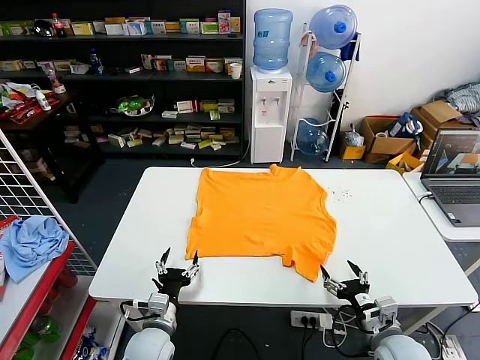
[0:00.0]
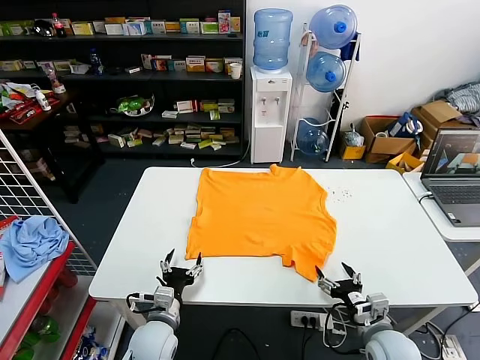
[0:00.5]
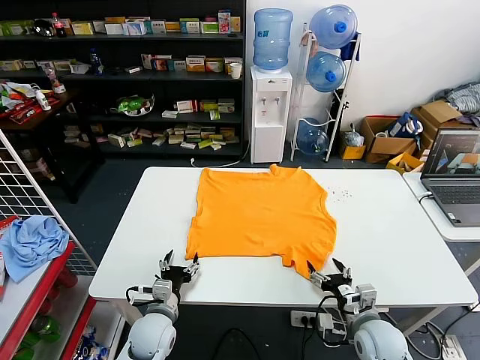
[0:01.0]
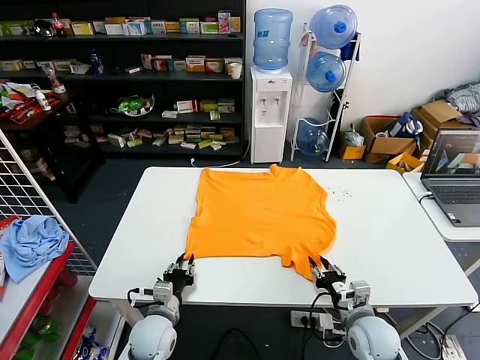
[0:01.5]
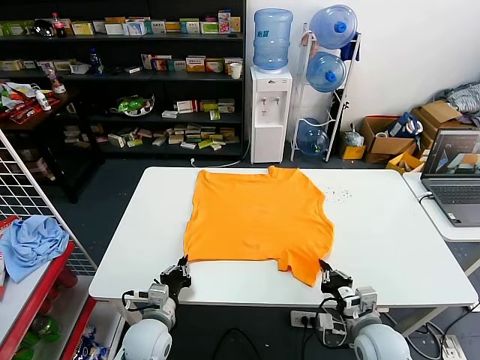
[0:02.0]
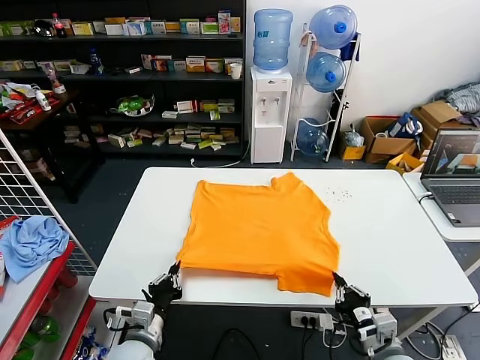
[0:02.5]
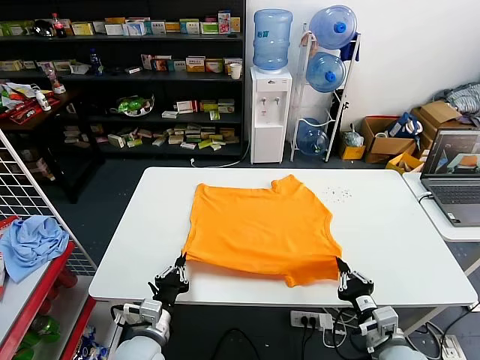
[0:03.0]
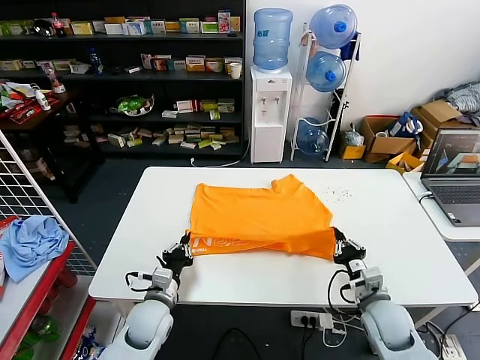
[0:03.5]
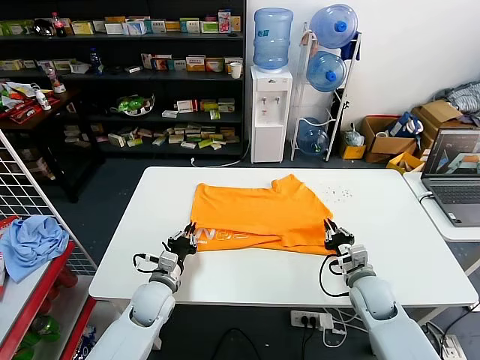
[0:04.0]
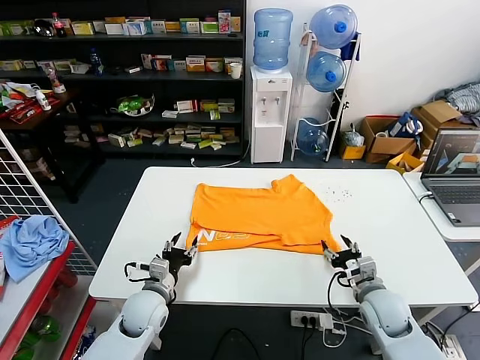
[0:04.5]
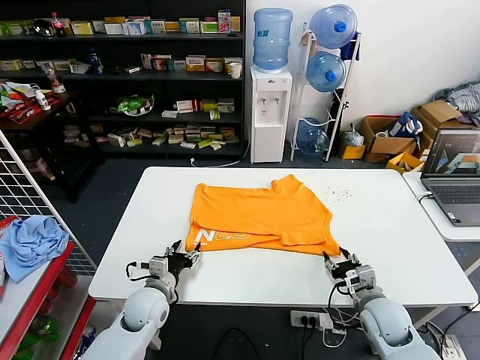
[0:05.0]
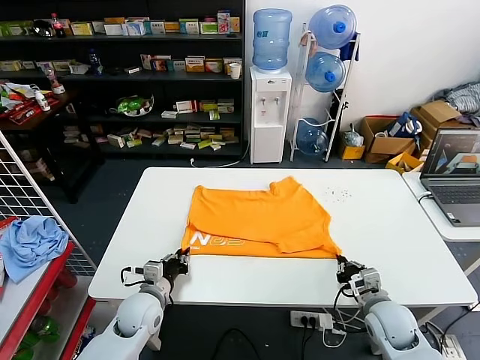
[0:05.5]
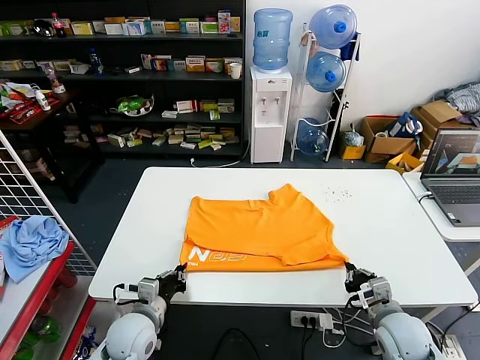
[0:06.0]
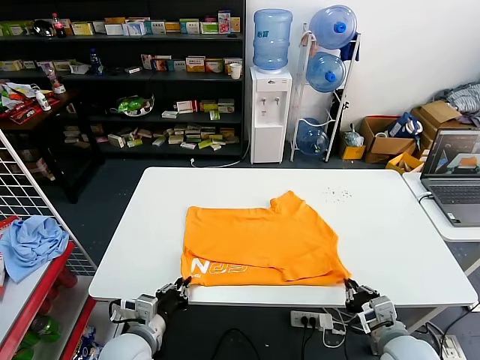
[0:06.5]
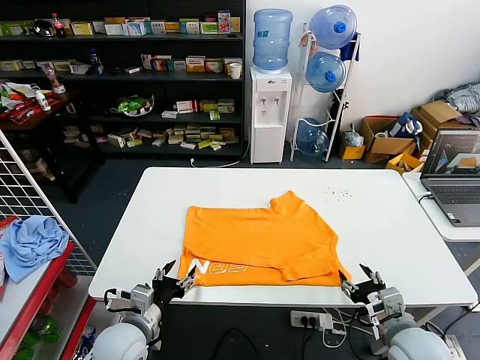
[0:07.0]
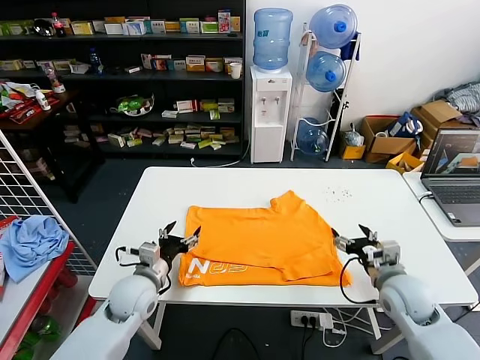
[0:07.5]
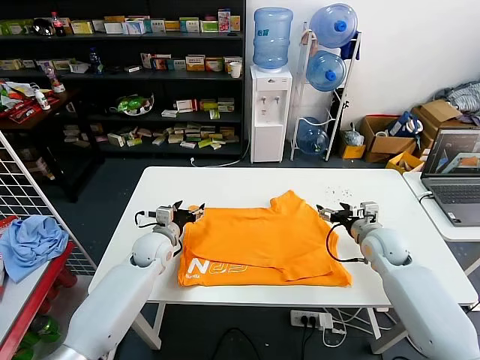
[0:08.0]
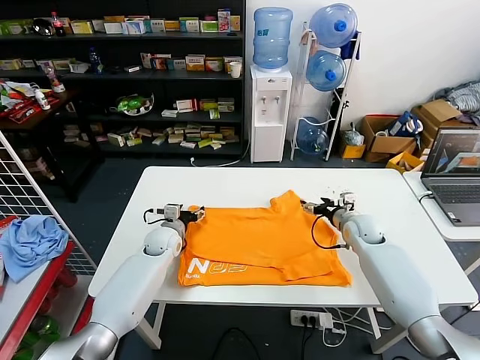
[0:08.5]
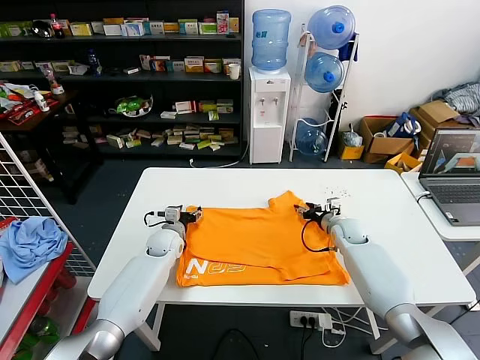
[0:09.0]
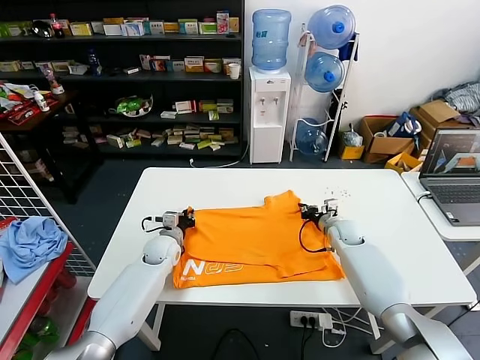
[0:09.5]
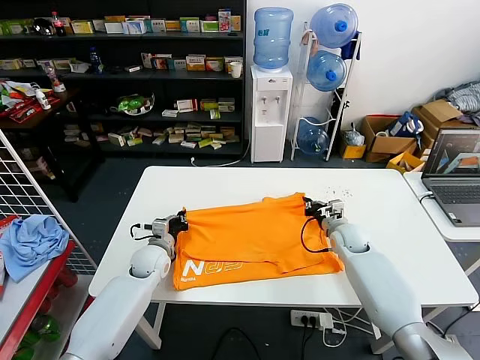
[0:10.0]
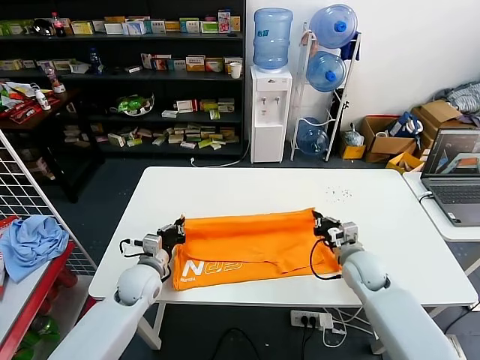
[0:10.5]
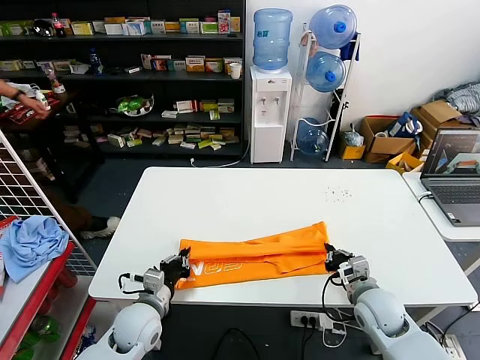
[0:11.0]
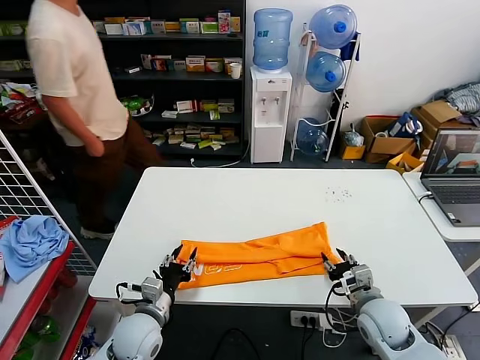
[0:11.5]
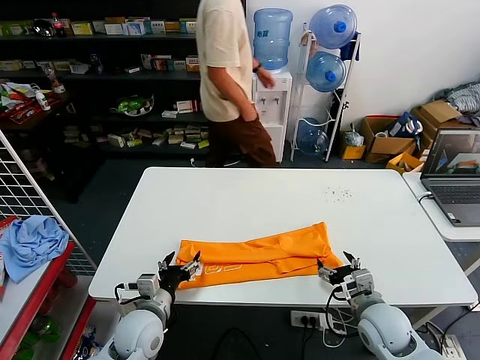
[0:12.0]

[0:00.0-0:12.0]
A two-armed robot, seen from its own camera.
Task of the whole recording: fold and organize the clothes.
Step, 0:00.0 to 0:02.0: use both grippers simultaneously to clamp the lower edge of the clothing fabric.
Step, 0:02.5 to 0:04.0: use both grippers to drag the lower edge of the fabric forward and fold it over the upper edge.
Step, 0:04.5 to 0:06.5: Drag the clothes downward with both gripper.
Step, 0:07.0 to 0:09.5: use both grippers simultaneously to clamp the upper edge of the clothing fabric.
Step, 0:10.0 to 0:11.0: use both grippers to drag the upper edge of the fabric backward and fold it over the lower edge.
0:02.0 to 0:04.0: The grippers both shift forward by approximately 10 cm.
0:04.0 to 0:06.0: Both grippers travel together backward, about 10 cm. The right gripper opens and closes again, while the left gripper opens, then closes once more.
0:06.0 to 0:08.0: The two grippers go approximately 20 cm forward. The left gripper opens up. The right gripper opens.
0:08.0 to 0:10.0: The left gripper ends up approximately 5 cm from where it was, and closes. Meanwhile the right gripper travels downward by approximately 5 cm, and closes up.
0:10.0 to 0:12.0: Both grippers travel together backward, some 20 cm. The right gripper opens. The left gripper opens.

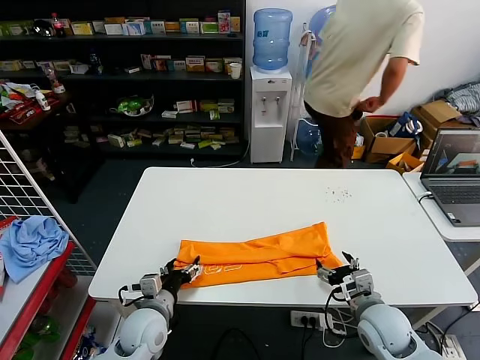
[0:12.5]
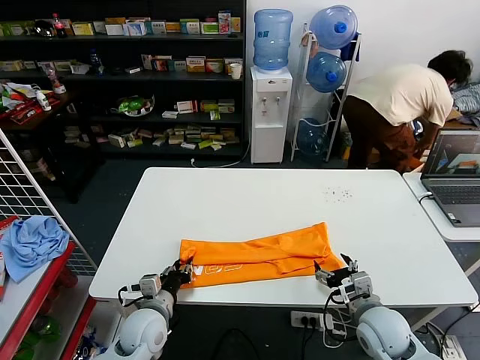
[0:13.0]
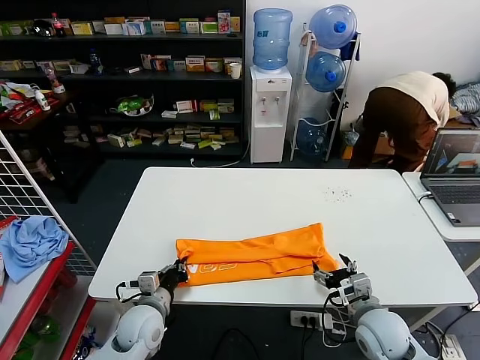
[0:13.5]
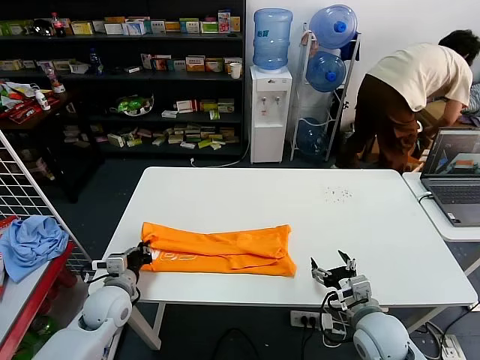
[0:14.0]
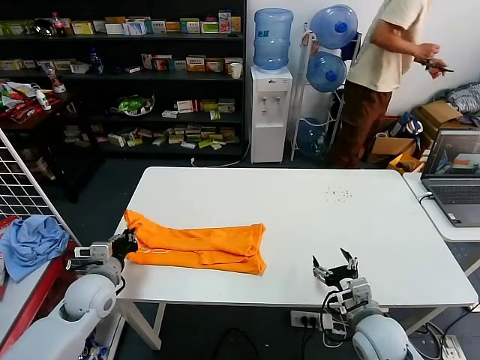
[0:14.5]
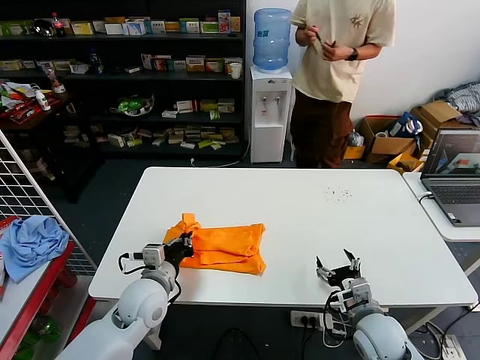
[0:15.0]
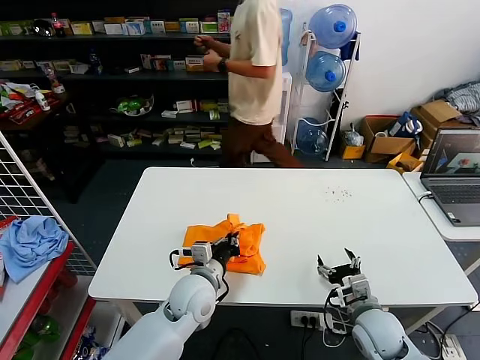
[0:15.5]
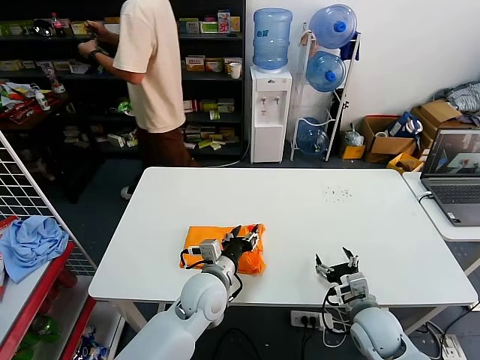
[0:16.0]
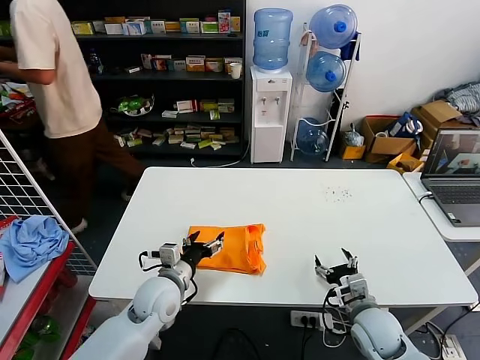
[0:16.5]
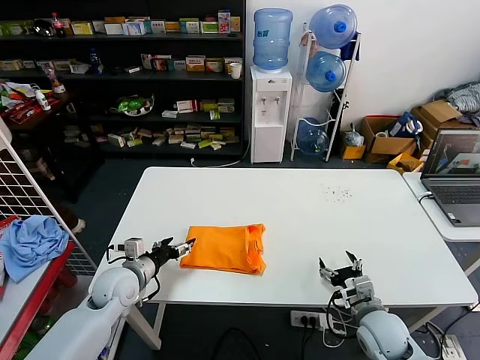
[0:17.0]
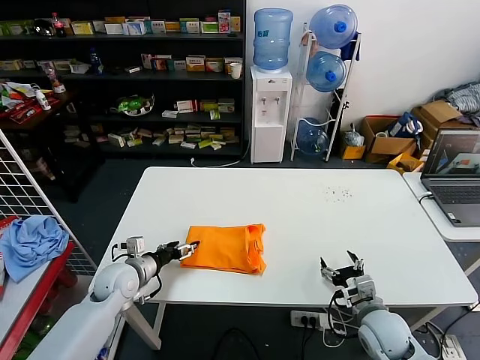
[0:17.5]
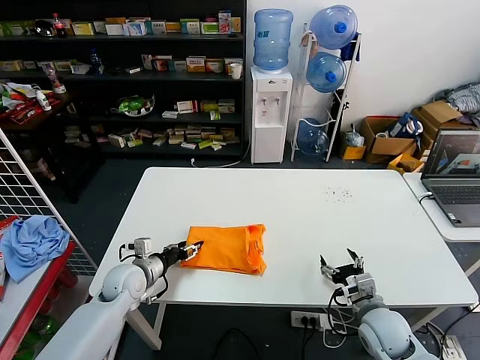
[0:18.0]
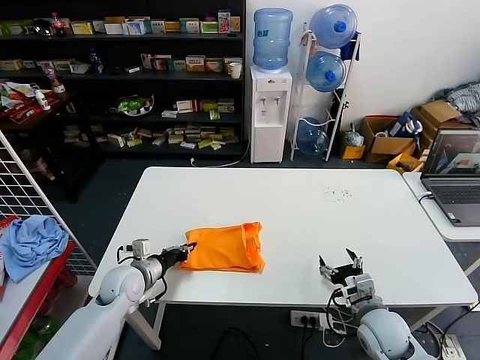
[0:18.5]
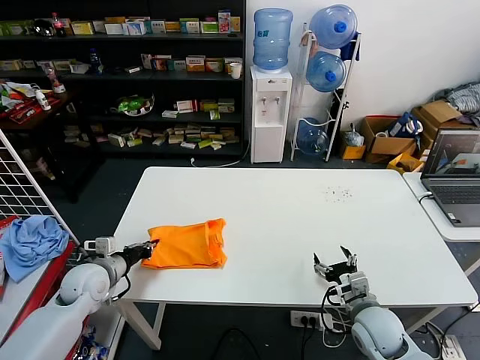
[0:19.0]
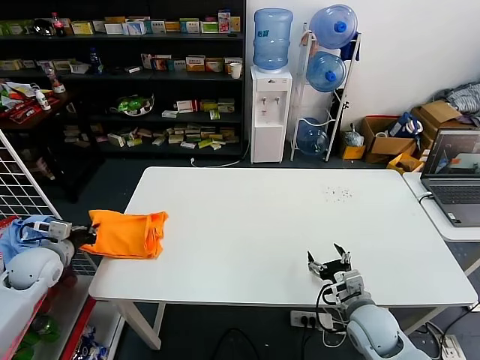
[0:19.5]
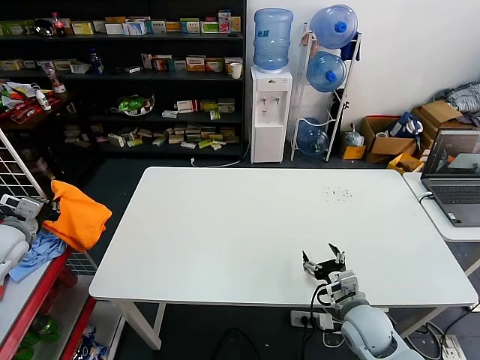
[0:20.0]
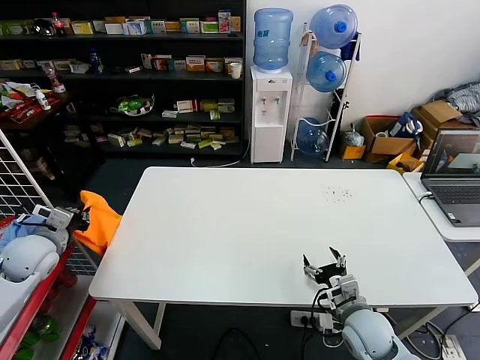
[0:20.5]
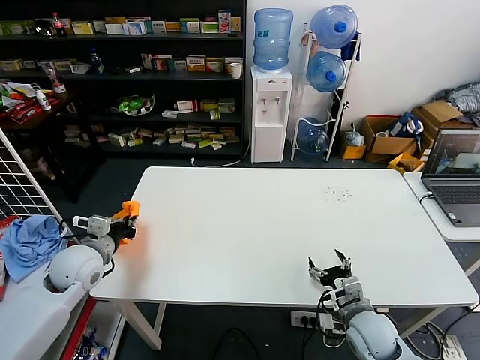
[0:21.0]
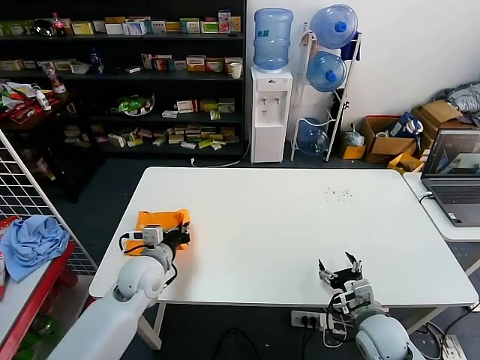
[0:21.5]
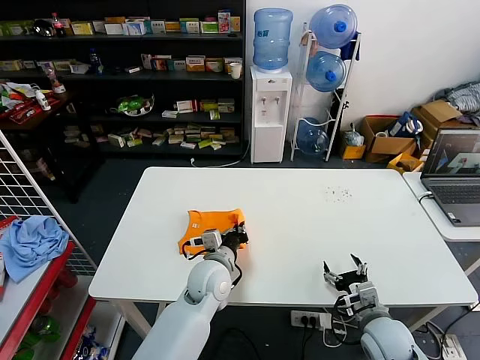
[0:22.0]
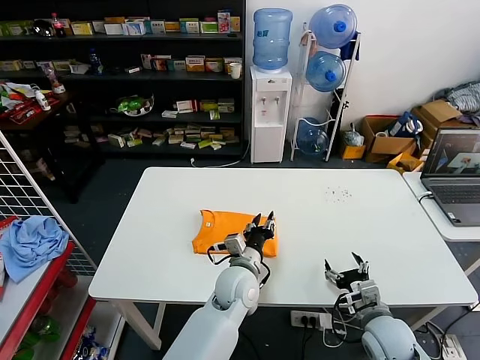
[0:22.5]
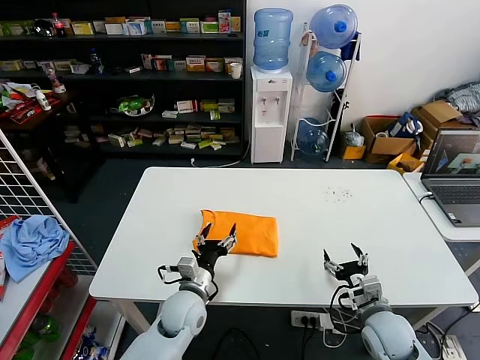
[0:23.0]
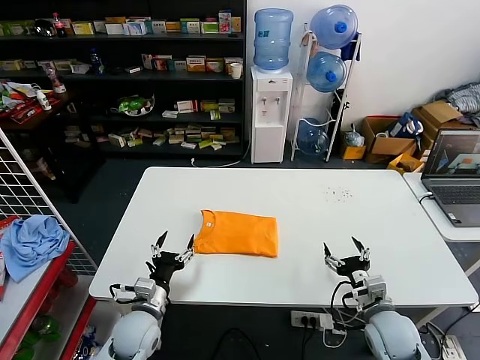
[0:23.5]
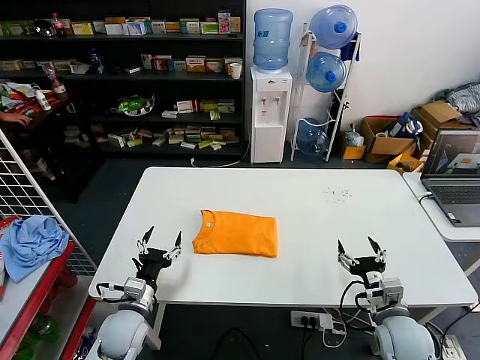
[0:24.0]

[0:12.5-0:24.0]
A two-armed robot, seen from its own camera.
Task of the whole recording: fold and organize the clothes.
Step, 0:13.5 to 0:15.5: use the left gripper to drag the left edge of the fabric to the left and folds it over the right edge.
Step, 0:16.5 to 0:22.5: Flip the folded clothes over with left gripper.
0:12.5 to 0:14.5: The left gripper goes roughly 15 cm to the left and upward, and closes its fingers.
0:14.5 to 0:16.5: The left gripper is displaced to the right by approximately 15 cm, and opens its fingers.
0:16.5 to 0:18.5: The left gripper shifts roughly 10 cm to the left, and closes its fingers.
0:18.5 to 0:20.0: The left gripper shifts about 25 cm to the left and upward.
0:20.0 to 0:22.0: The left gripper shifts approximately 40 cm to the right.
0:22.0 to 0:24.0: The left gripper shifts roughly 20 cm to the left and backward, and opens its fingers.
